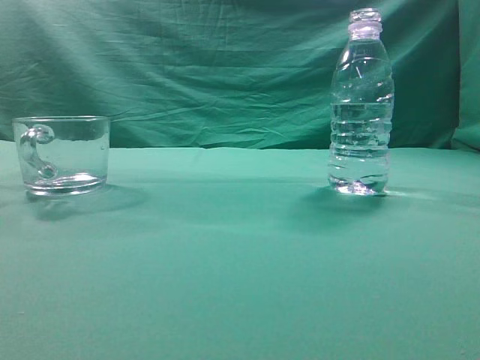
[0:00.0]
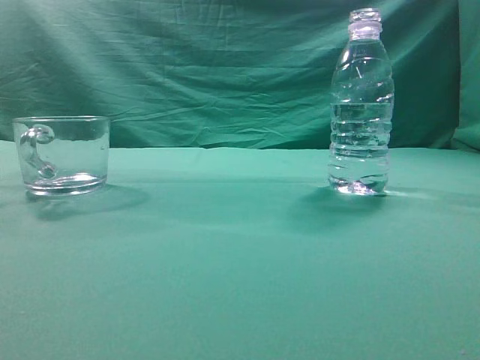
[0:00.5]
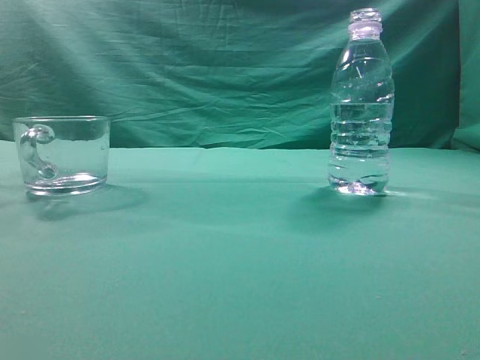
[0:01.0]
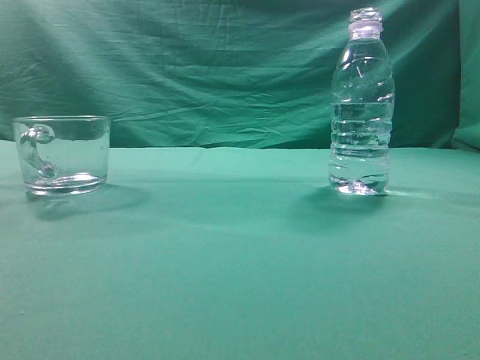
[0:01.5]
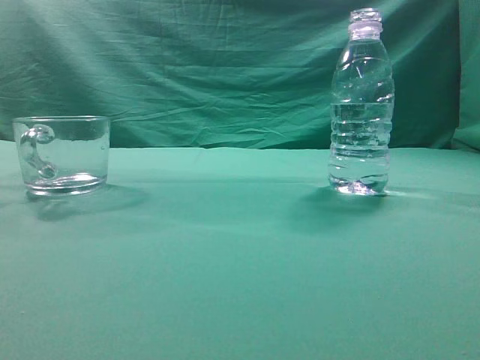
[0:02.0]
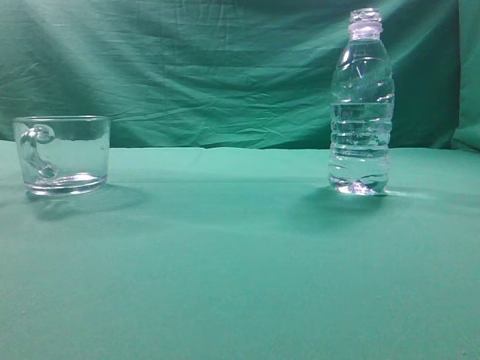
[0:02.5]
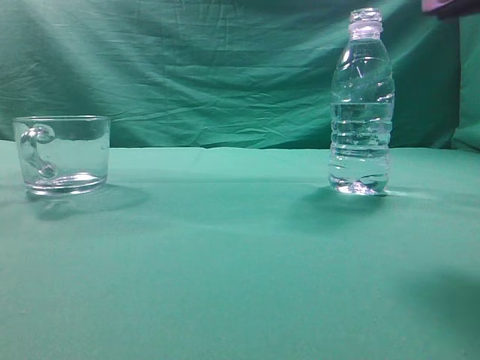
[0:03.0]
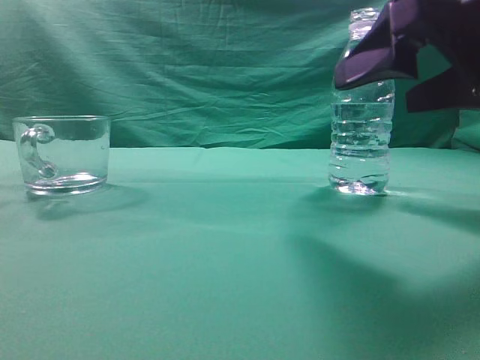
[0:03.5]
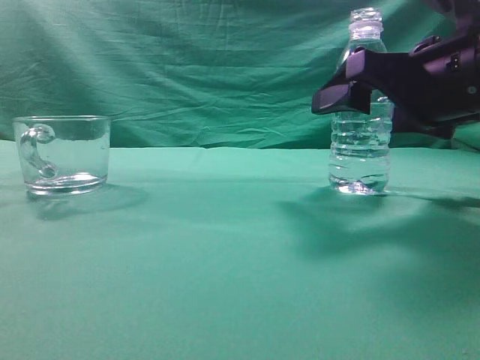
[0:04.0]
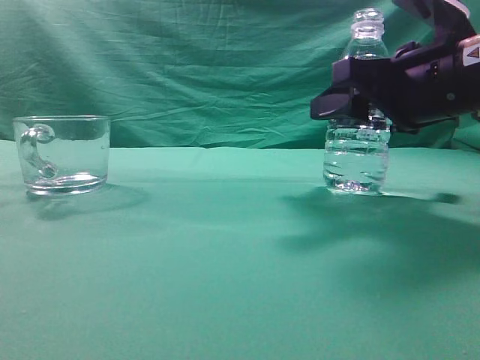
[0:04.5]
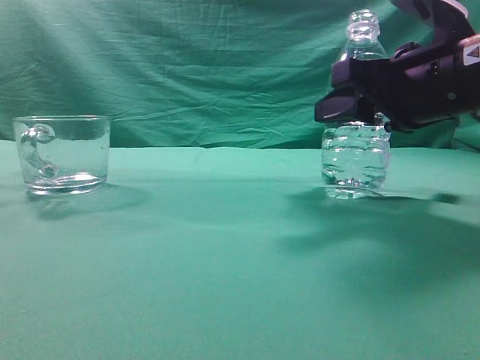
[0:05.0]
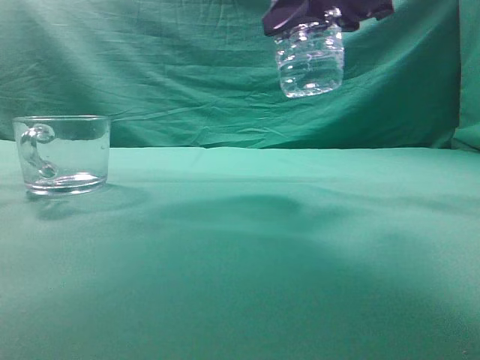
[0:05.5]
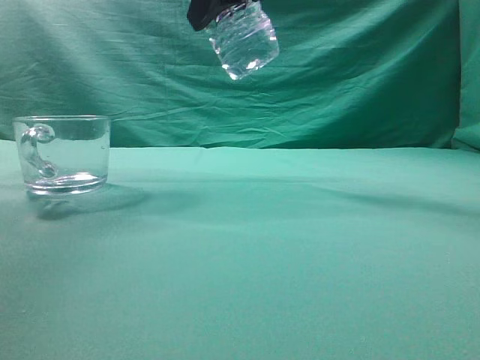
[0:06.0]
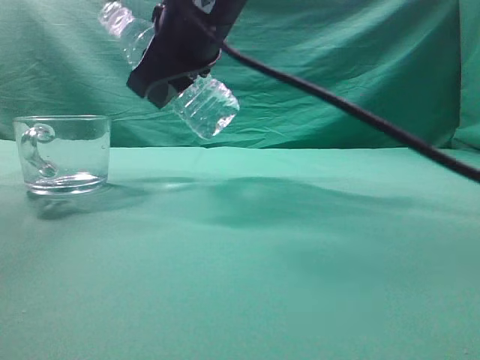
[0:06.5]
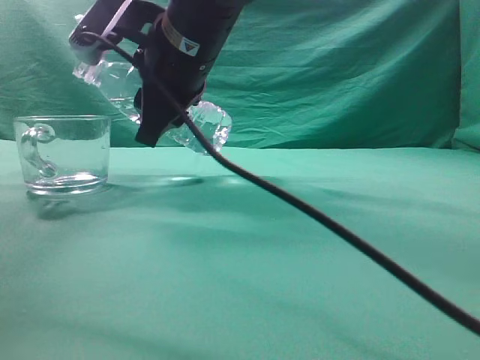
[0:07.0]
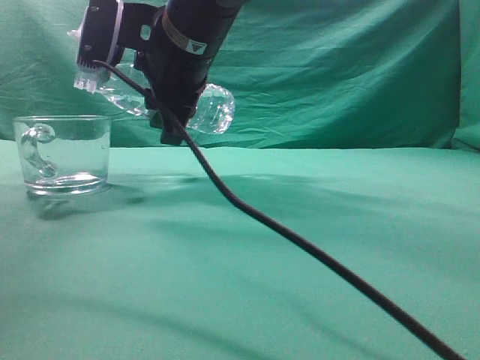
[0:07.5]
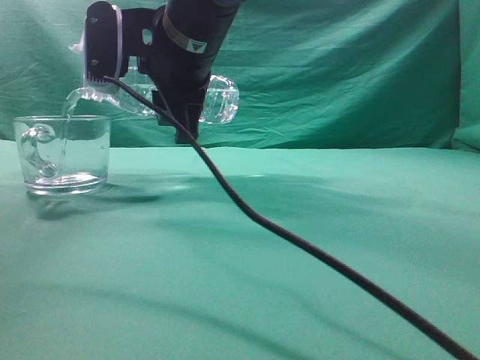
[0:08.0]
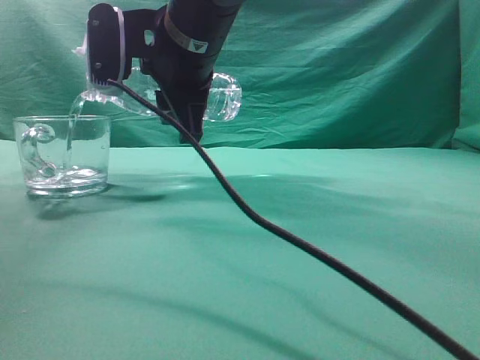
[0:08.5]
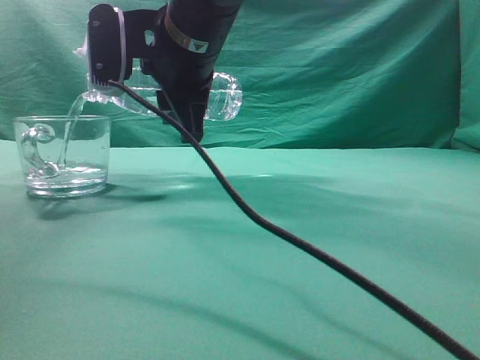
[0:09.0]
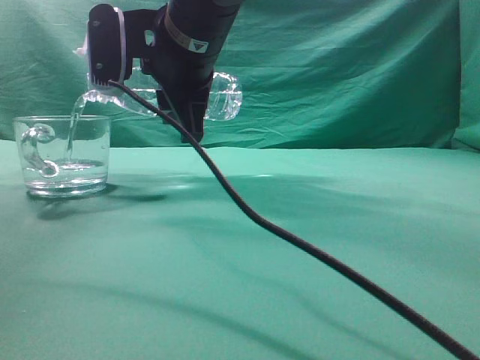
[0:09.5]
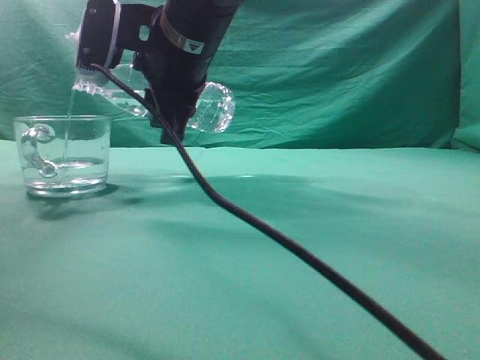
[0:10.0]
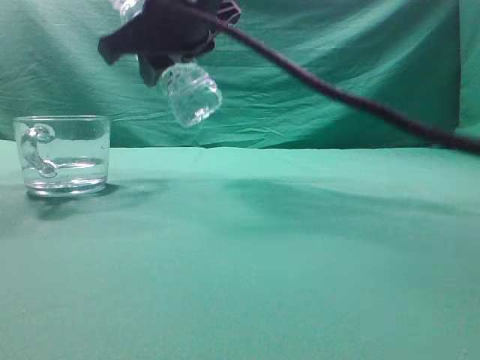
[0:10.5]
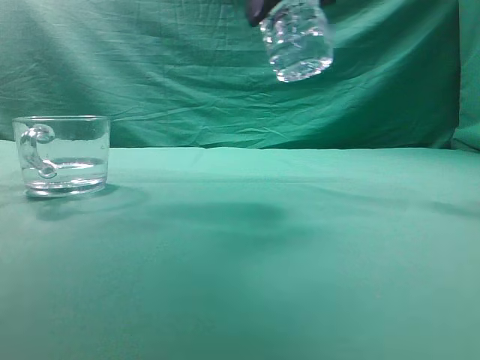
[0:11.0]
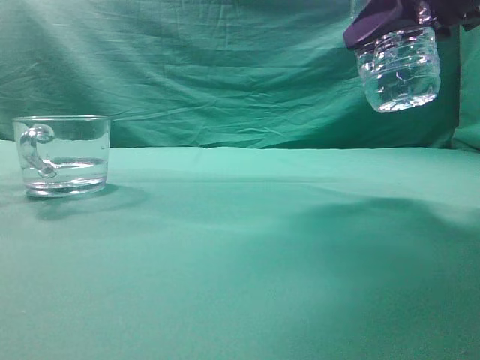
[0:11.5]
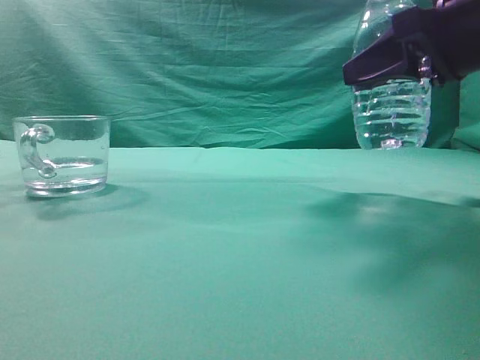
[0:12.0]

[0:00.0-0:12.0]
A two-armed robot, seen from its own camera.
Task of the whole recording: pick up the water bottle and pour the water in it into the glass.
Step, 0:00.0 to 0:05.0: Grasp the mineral water bottle.
Step, 0:05.5 to 0:10.0: Pour water into the teacup.
0:02.0 to 0:04.0: The right gripper moves forward, downward and to the left, some 30 cm, and opens its fingers.
0:04.0 to 0:06.0: The right gripper goes roughly 20 cm to the left and upward, and closes up.
0:06.0 to 0:08.0: The right gripper is displaced downward and to the left by approximately 10 cm.
0:08.0 to 0:10.0: There are only small adjustments of the grippers.
0:10.0 to 0:12.0: The right gripper goes approximately 25 cm to the right.

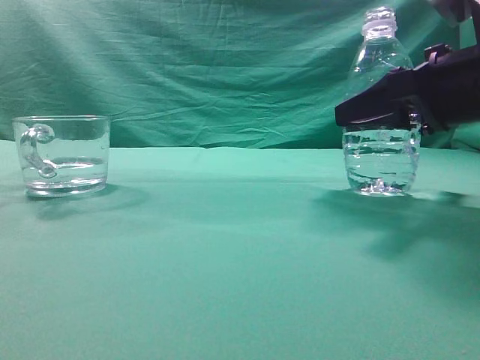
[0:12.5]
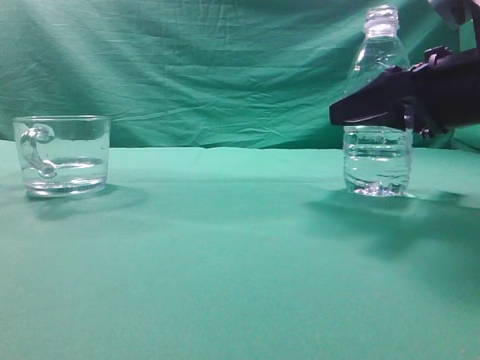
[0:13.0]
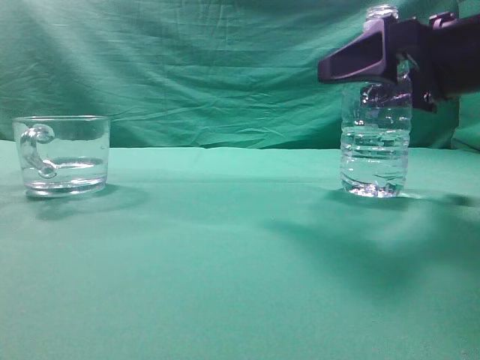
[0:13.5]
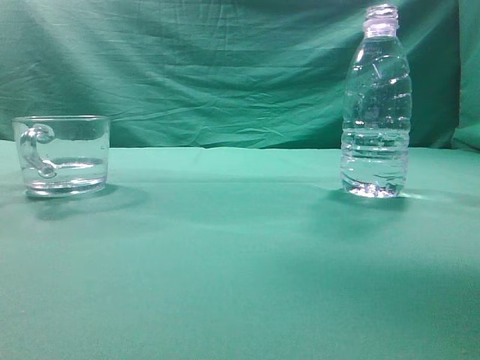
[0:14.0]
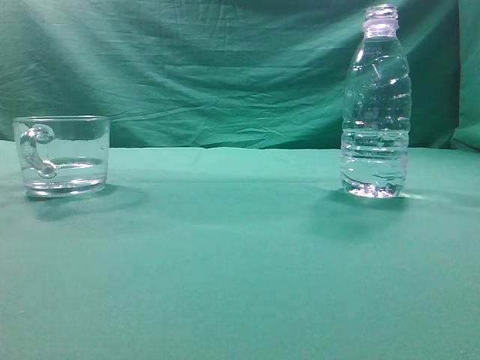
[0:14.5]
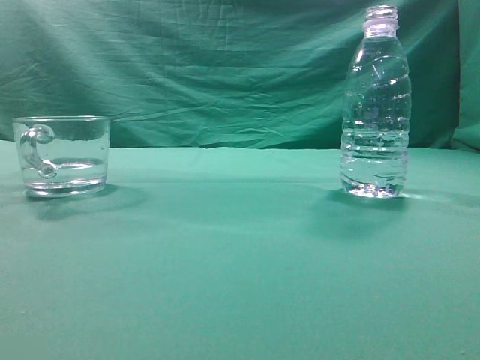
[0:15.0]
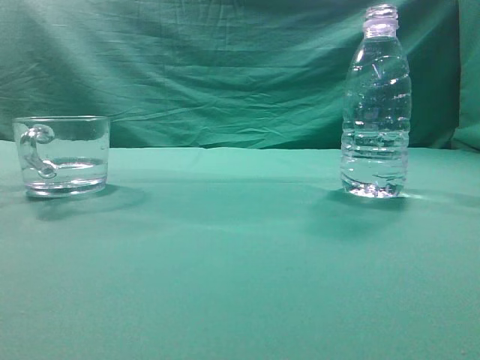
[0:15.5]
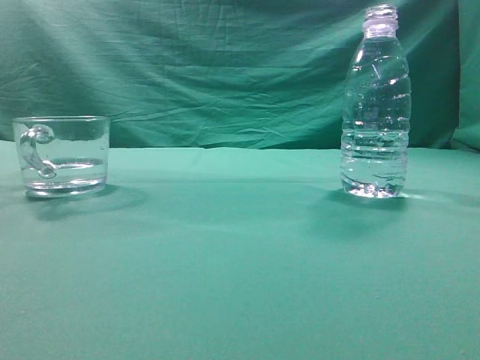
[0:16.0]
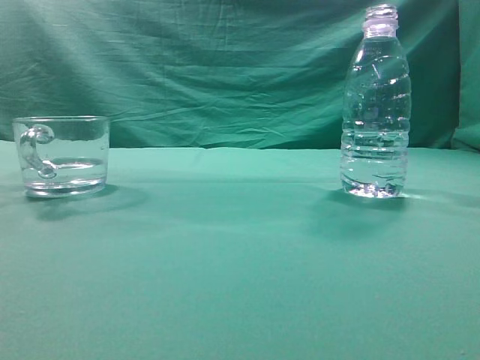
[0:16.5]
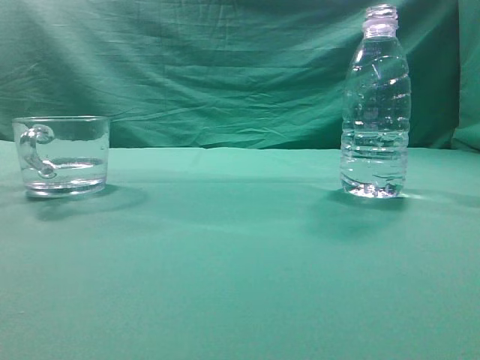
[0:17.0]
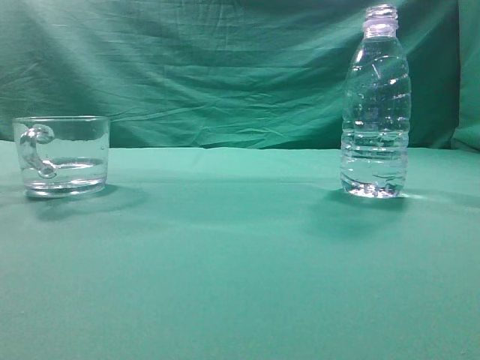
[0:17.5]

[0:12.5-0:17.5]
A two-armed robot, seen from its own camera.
Task of the whole recording: pick up the water bottle and pour the water in it into the glass.
0:12.5 to 0:15.0: The right gripper shifts some 40 cm upward and backward, and closes its fingers.

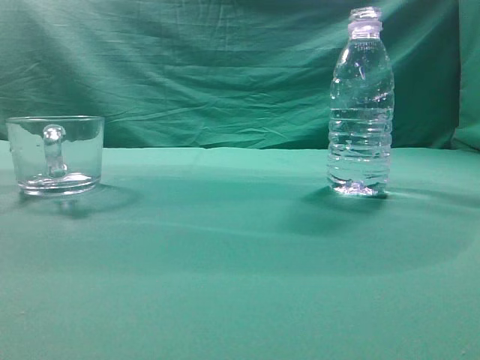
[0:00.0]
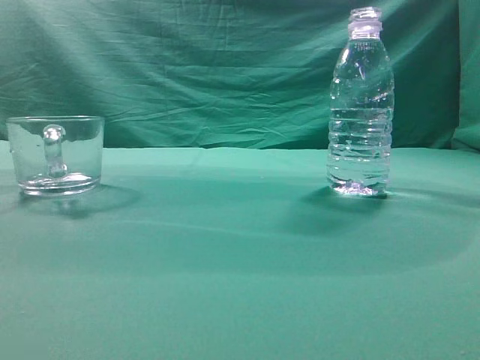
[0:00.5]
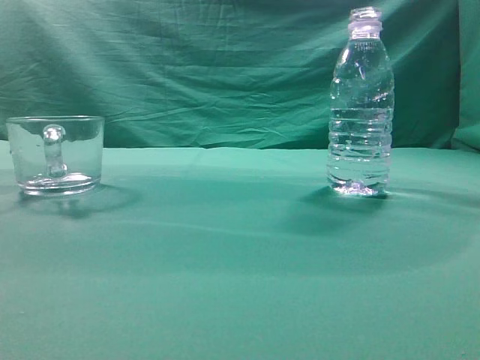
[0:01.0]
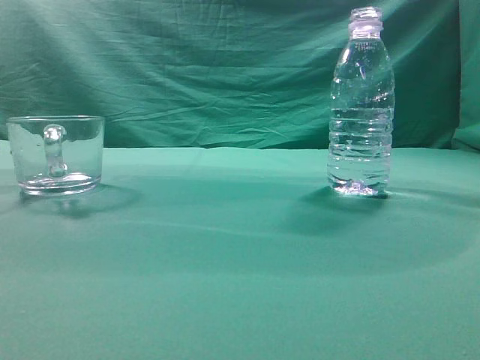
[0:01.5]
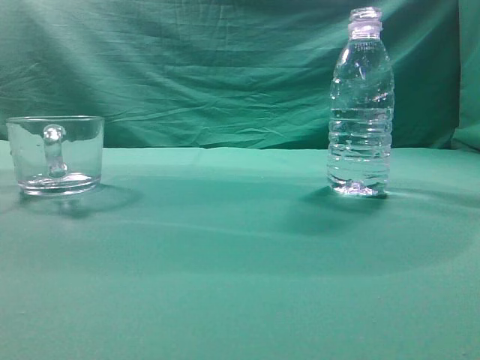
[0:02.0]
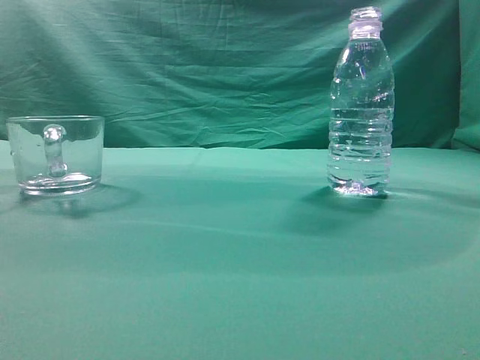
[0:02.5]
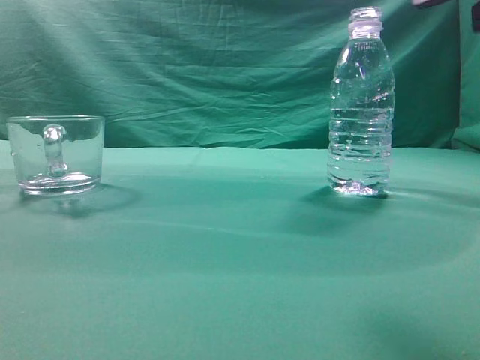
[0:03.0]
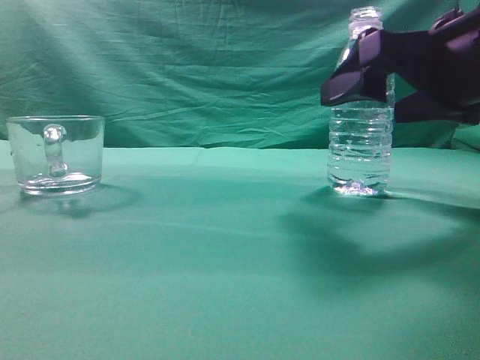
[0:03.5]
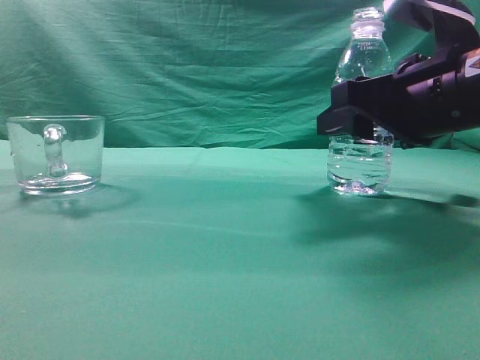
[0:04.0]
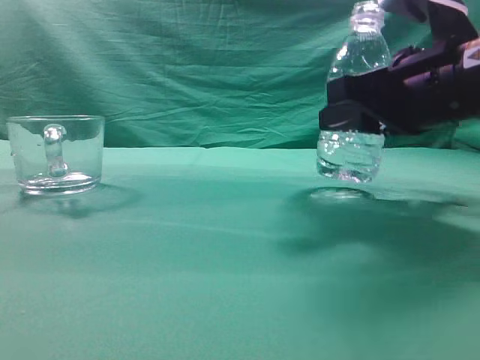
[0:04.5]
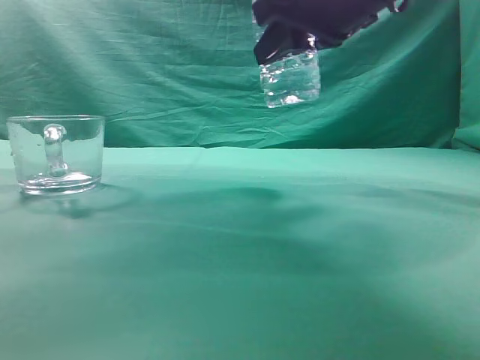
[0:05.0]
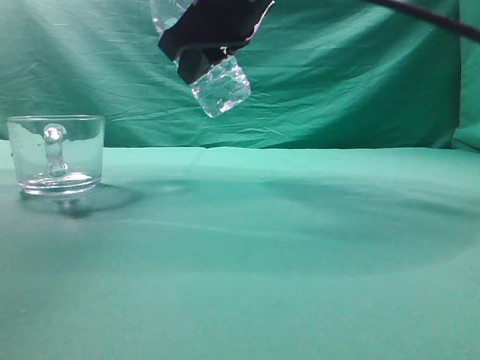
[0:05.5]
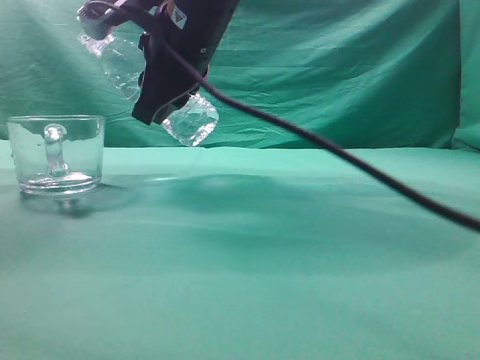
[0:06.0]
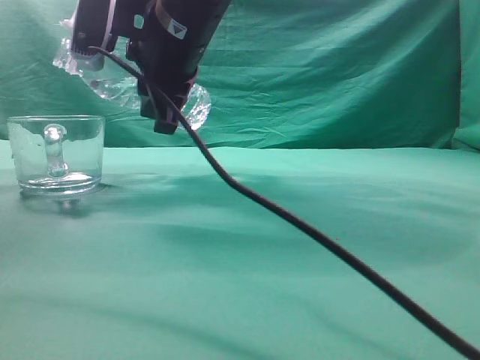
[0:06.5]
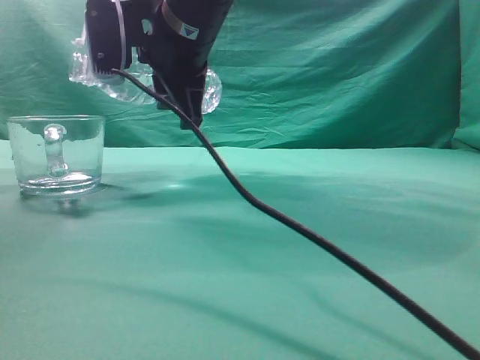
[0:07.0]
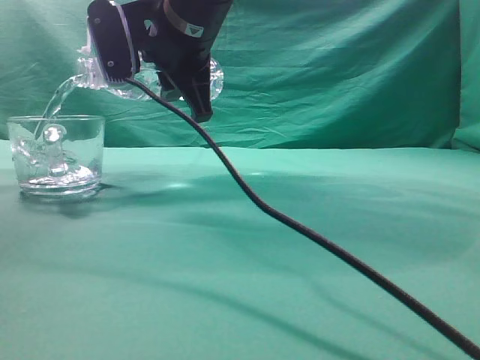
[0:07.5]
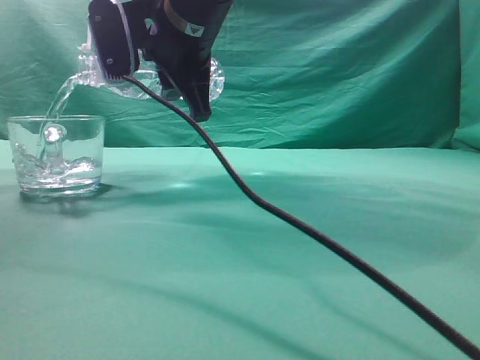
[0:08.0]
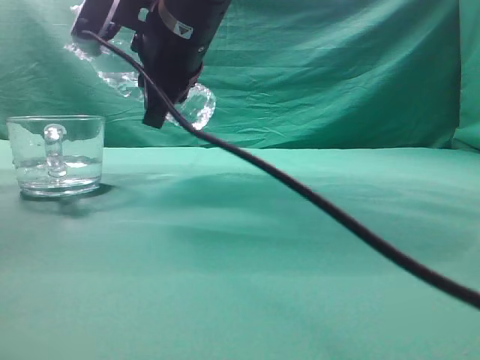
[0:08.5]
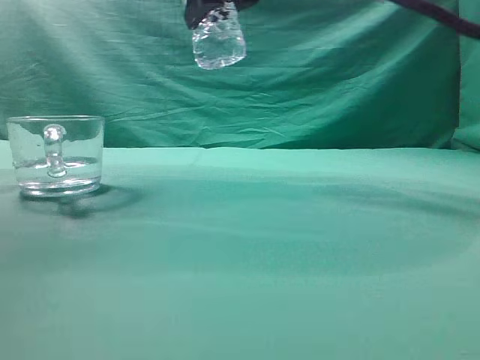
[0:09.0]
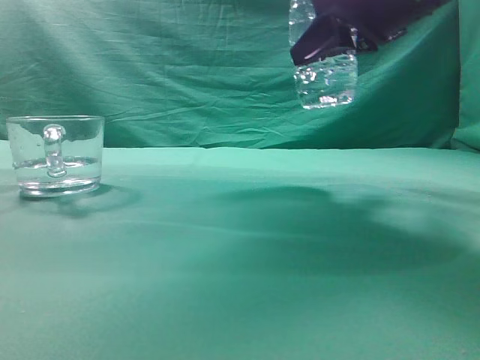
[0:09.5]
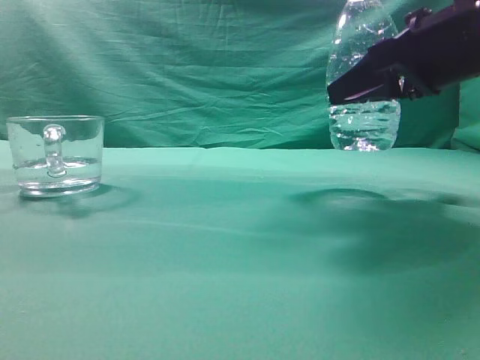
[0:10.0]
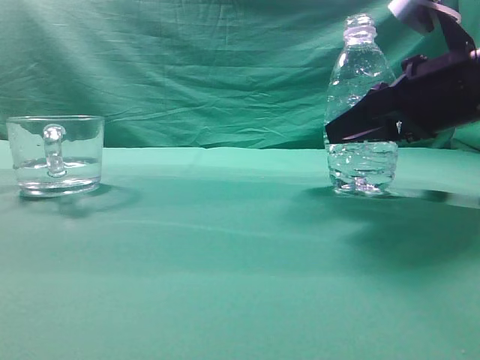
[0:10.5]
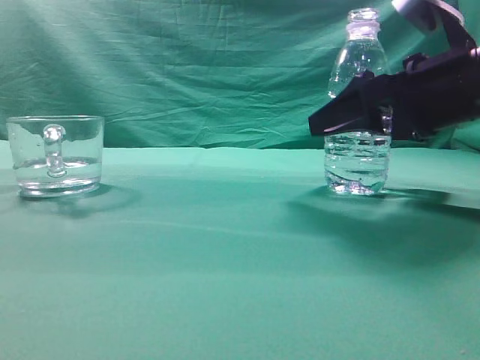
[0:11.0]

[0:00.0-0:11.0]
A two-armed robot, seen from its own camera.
Task of the whole recording: pick up the water bottle and pour the water in it into the glass.
Step, 0:00.0 to 0:04.5: Grasp the mineral water bottle.
Step, 0:05.0 to 0:08.5: Pour water into the teacup.
0:02.0 to 0:03.5: The right gripper moves forward, downward and to the left, about 25 cm, and opens.
0:03.5 to 0:05.5: The right gripper heads to the left, forward and upward, covering roughly 20 cm, and closes its fingers.
0:05.5 to 0:07.5: The right gripper shifts by about 5 cm.
0:07.5 to 0:09.0: The right gripper travels to the right and upward by about 10 cm.
0:09.0 to 0:11.0: The right gripper travels to the right and downward by about 20 cm, and opens.
